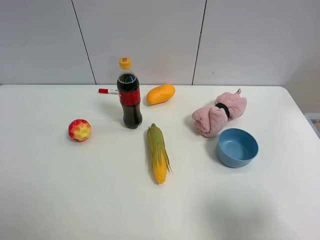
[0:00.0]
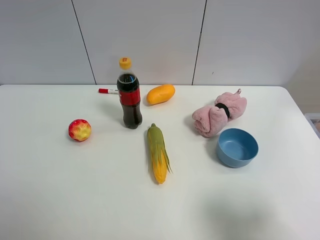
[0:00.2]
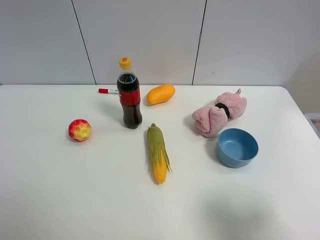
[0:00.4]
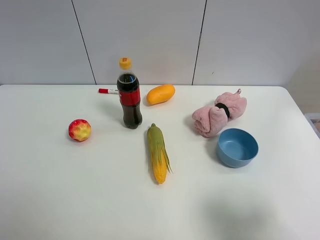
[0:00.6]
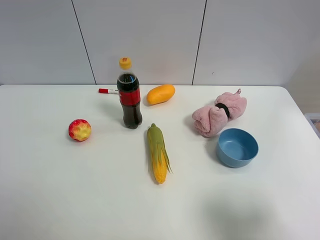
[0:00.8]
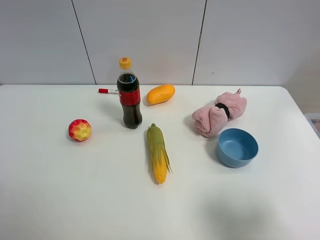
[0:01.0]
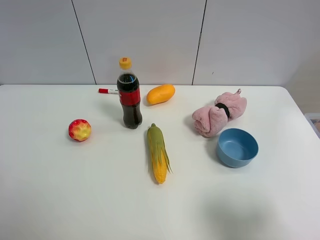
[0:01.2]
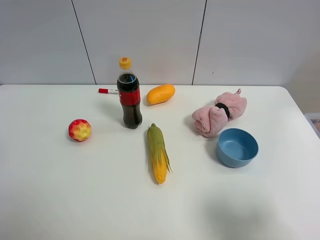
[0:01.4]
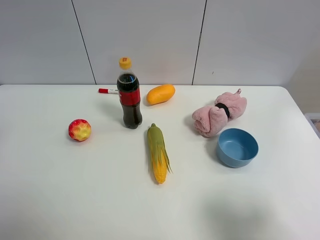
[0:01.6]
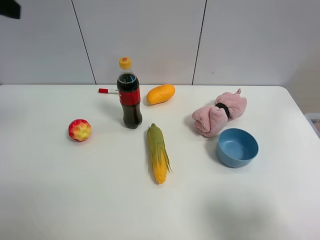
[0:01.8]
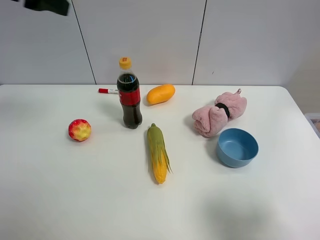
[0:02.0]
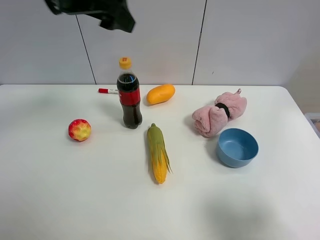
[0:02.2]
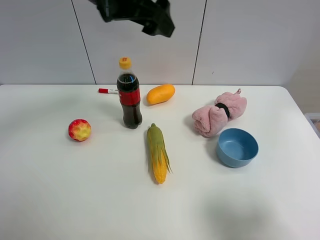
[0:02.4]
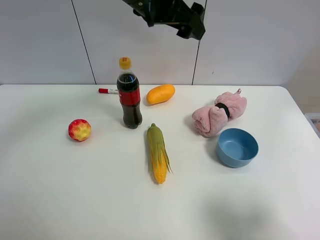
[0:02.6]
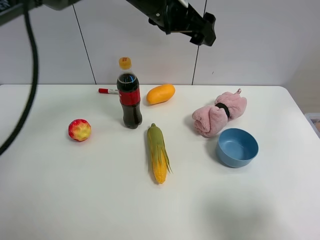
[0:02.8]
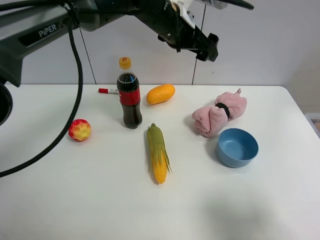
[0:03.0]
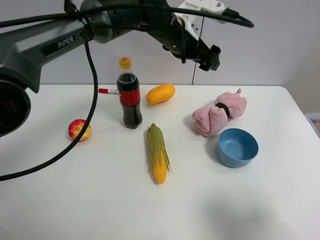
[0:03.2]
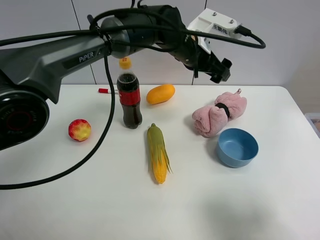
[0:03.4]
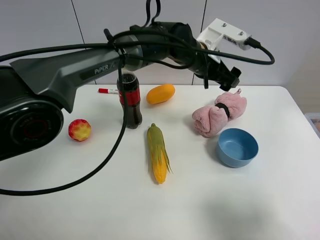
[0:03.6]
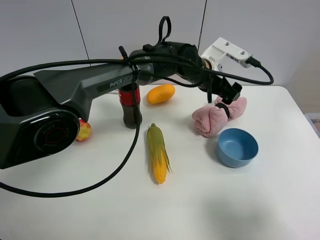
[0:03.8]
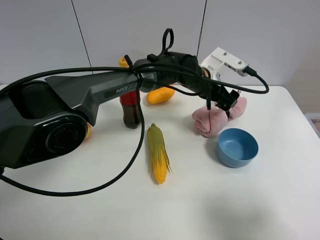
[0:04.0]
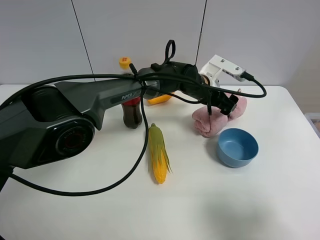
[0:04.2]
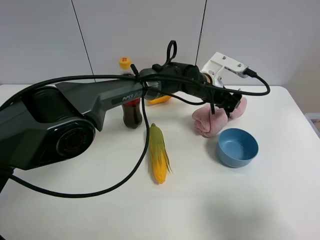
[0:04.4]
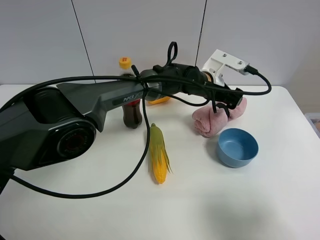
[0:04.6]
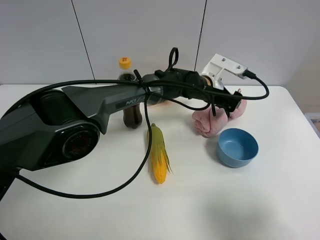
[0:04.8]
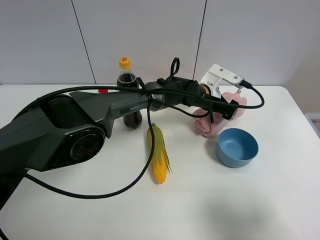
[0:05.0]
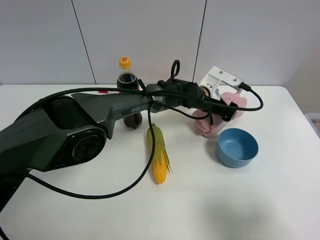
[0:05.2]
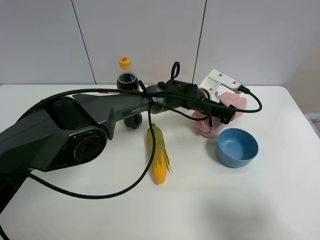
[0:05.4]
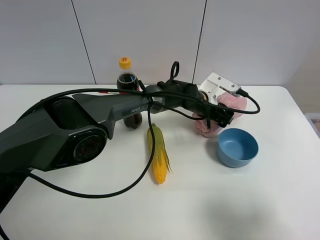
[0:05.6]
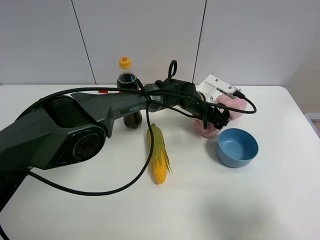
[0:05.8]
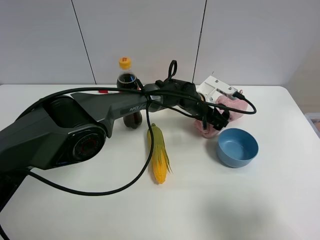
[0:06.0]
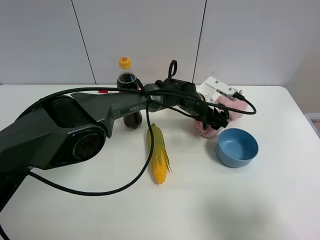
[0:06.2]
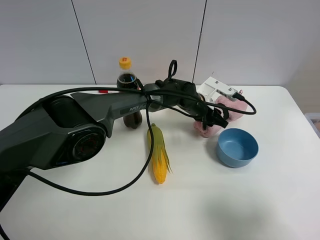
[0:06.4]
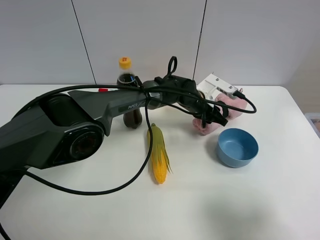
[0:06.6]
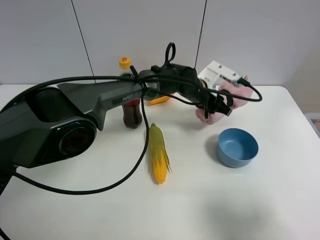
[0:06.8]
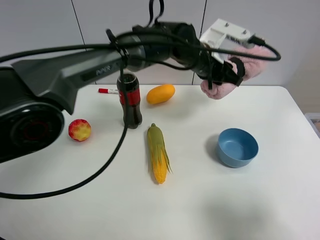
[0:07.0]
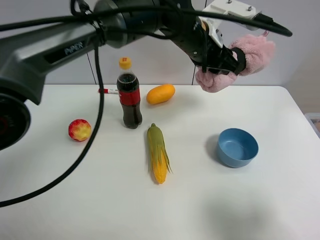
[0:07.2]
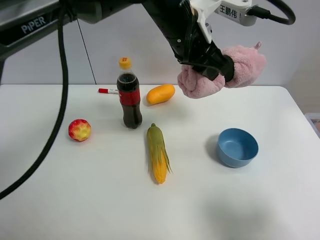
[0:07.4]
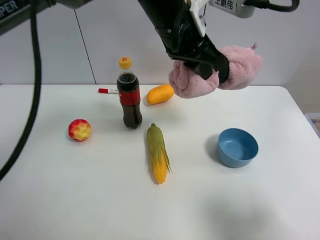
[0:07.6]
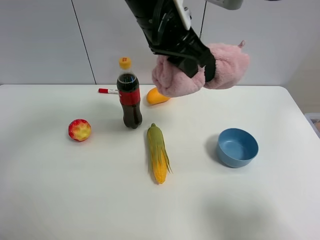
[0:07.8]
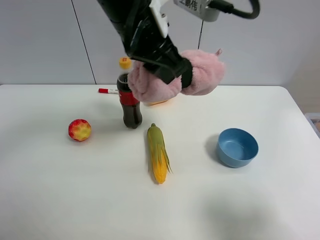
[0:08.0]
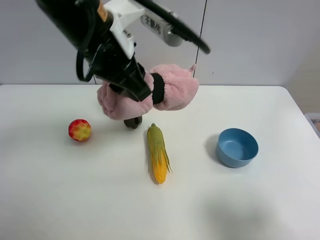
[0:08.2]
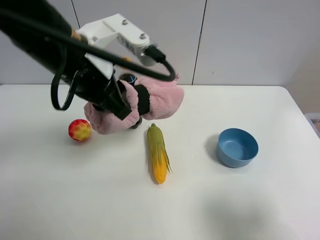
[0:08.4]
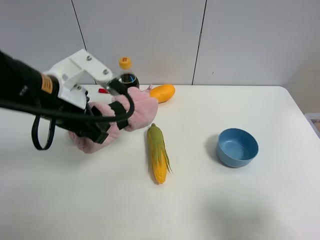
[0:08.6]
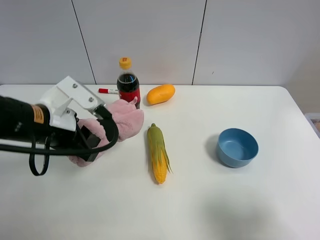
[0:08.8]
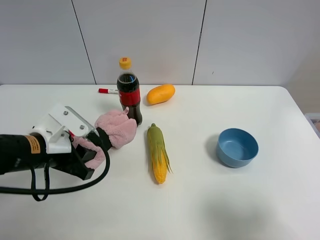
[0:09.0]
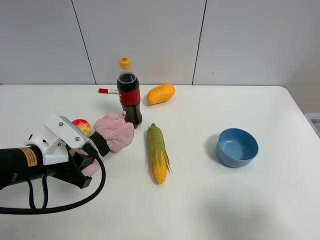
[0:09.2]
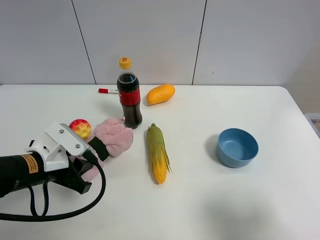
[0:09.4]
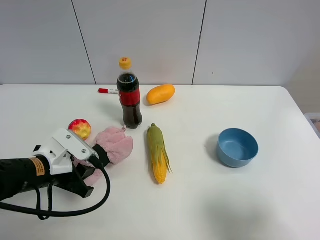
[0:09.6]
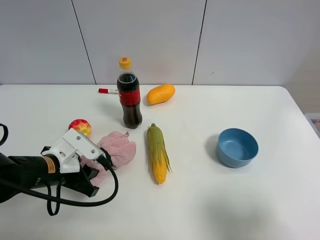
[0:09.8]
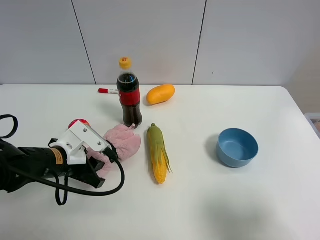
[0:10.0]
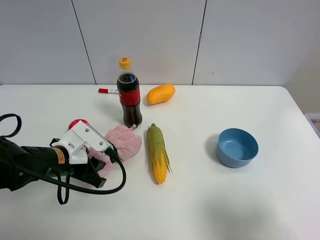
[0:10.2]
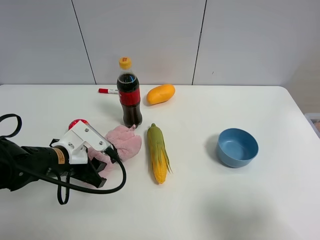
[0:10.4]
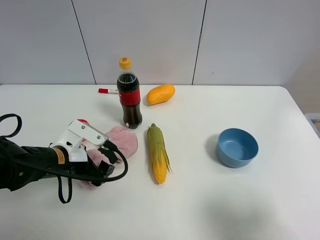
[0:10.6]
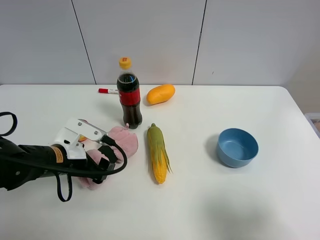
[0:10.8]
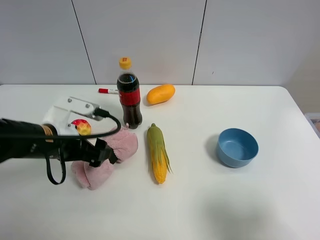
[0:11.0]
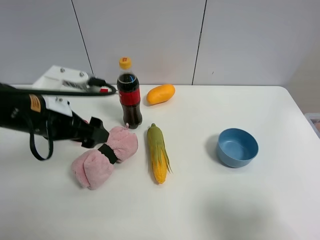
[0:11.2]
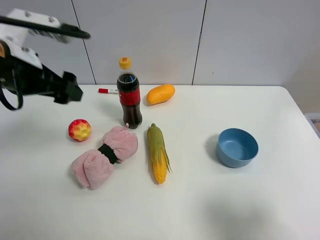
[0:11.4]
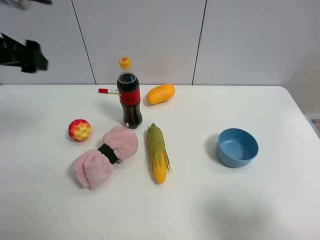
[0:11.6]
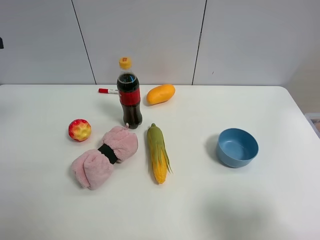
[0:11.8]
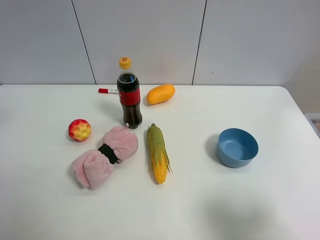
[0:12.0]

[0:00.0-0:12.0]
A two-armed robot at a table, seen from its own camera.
Task of the whole recording: the gripper move the object.
Step, 0:00.0 to 0:06.4: Grasp the pink towel with the left gripper.
Step, 0:06.6 to 0:10.8: Place the pink towel on the table with the left gripper.
0:01.6 to 0:03.0: The left gripper heads to the right and forward, covering approximately 40 cm.
0:03.0 to 0:04.4: The left gripper moves downward and to the right, about 15 cm.
0:04.4 to 0:06.0: The left gripper heads downward, covering some 5 cm.
0:06.0 to 0:07.6: The left gripper moves upward, roughly 25 cm, and closes up.
0:07.6 to 0:09.0: The left gripper is displaced to the left, downward and backward by approximately 30 cm.
0:09.0 to 0:10.4: The left gripper is displaced downward by about 5 cm.
0:10.4 to 0:12.0: The left gripper goes roughly 30 cm upward and to the left, and opens up.

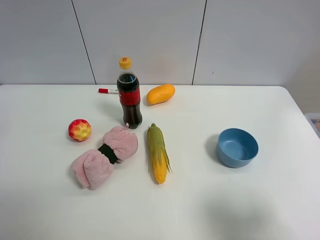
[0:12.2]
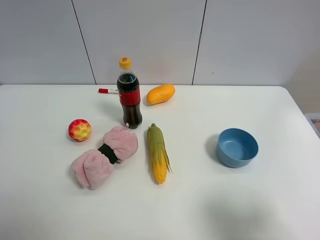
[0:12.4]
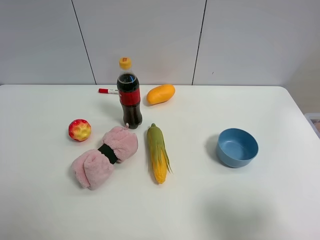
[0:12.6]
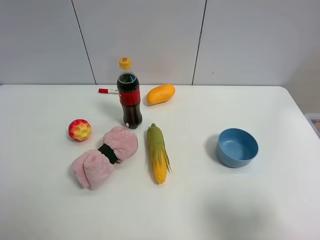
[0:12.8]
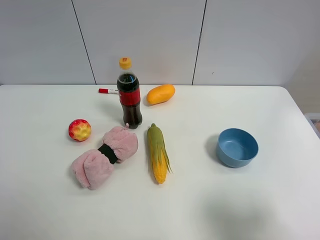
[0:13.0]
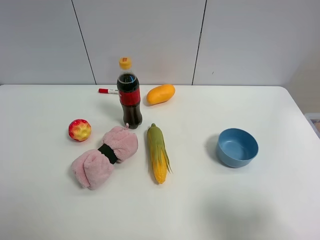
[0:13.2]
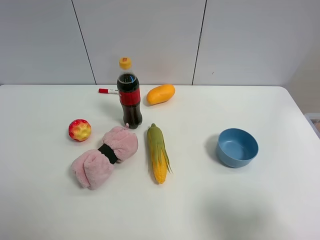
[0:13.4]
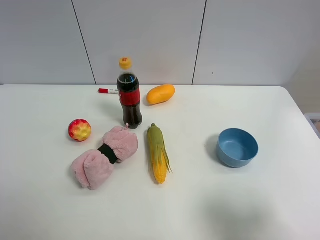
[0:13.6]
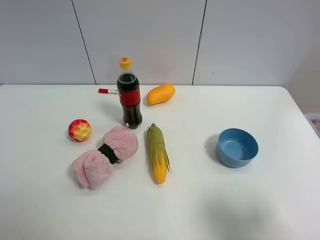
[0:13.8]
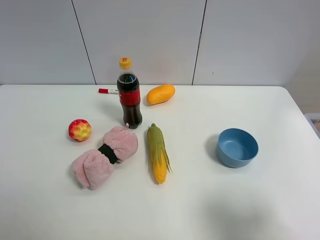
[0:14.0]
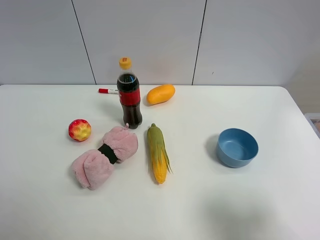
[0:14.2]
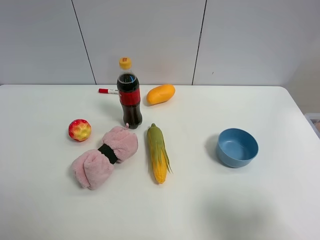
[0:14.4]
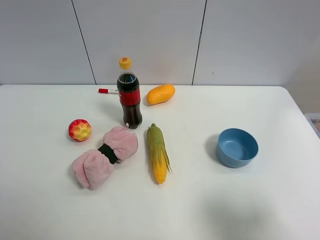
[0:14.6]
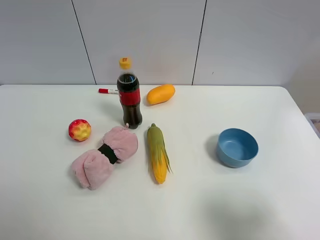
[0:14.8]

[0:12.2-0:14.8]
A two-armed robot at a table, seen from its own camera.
Task of the whole recording: the gripper move the object.
0:13.4 to 0:14.8: Both grippers stay about where they are.

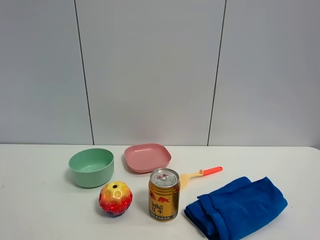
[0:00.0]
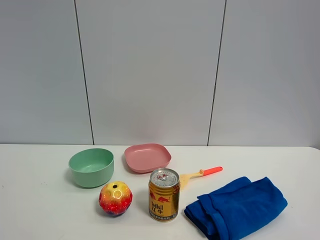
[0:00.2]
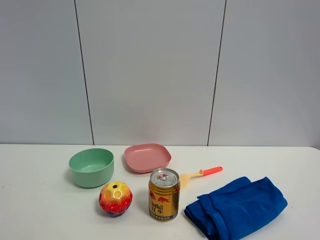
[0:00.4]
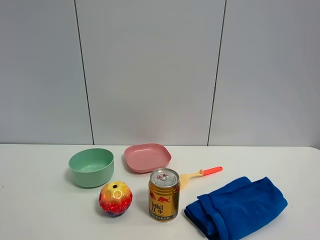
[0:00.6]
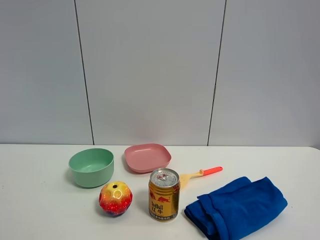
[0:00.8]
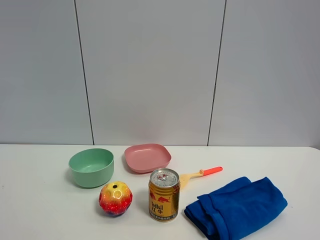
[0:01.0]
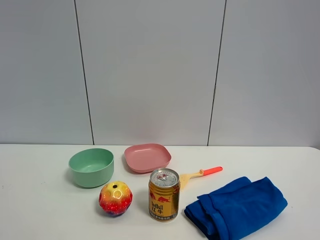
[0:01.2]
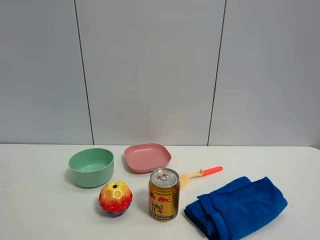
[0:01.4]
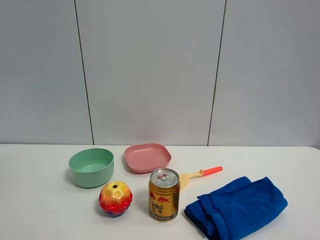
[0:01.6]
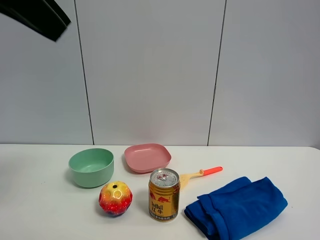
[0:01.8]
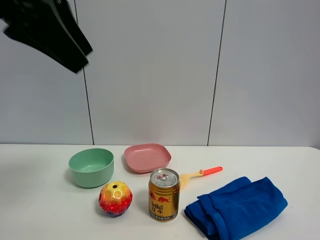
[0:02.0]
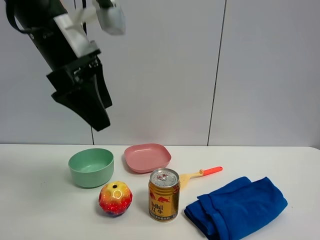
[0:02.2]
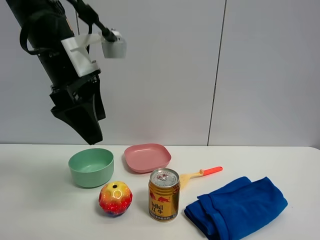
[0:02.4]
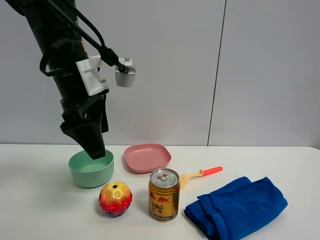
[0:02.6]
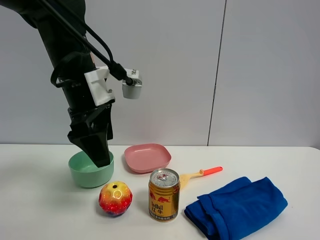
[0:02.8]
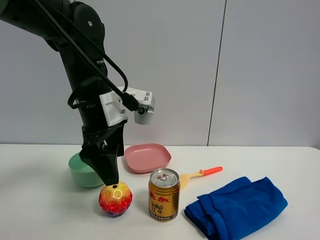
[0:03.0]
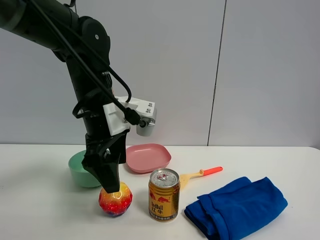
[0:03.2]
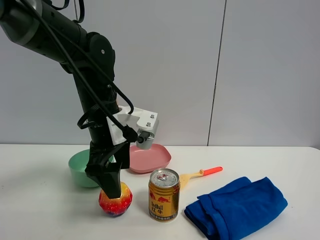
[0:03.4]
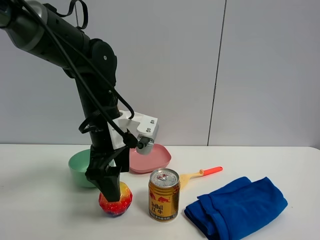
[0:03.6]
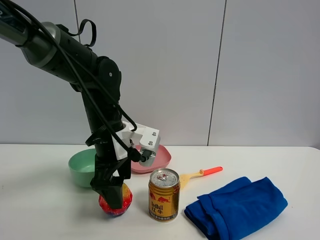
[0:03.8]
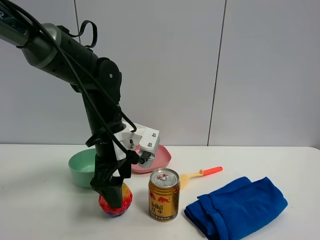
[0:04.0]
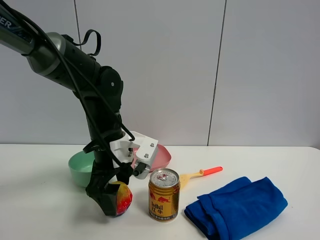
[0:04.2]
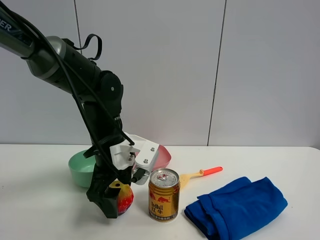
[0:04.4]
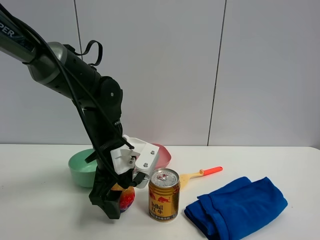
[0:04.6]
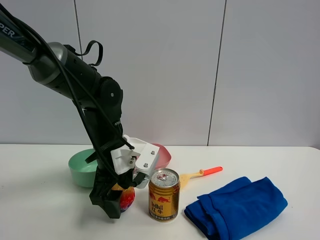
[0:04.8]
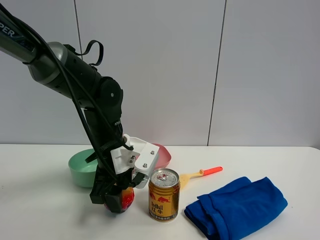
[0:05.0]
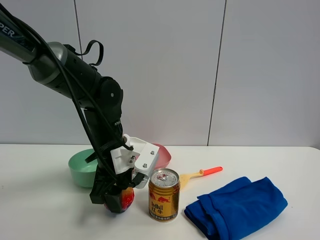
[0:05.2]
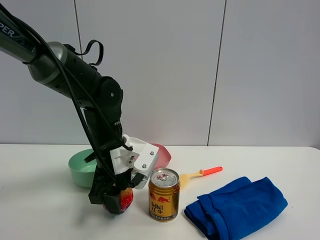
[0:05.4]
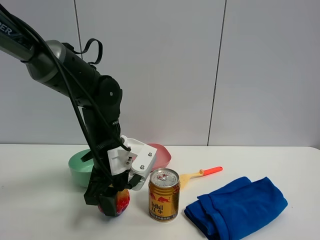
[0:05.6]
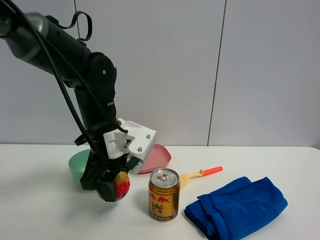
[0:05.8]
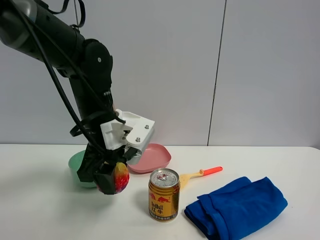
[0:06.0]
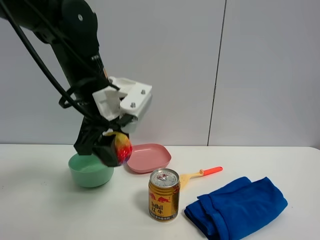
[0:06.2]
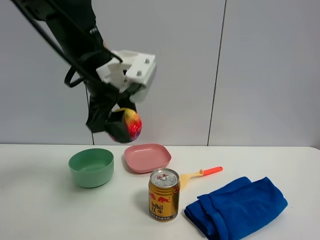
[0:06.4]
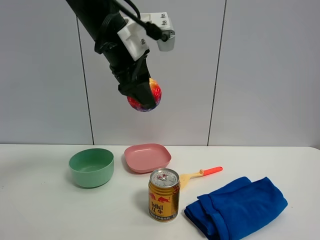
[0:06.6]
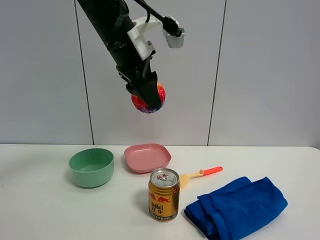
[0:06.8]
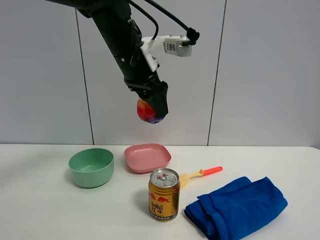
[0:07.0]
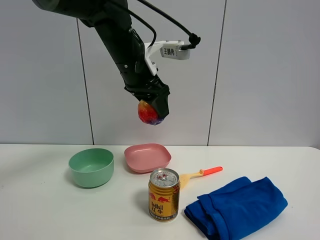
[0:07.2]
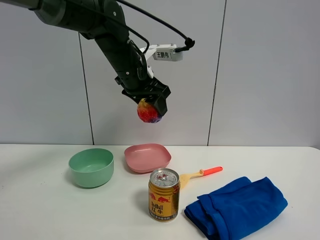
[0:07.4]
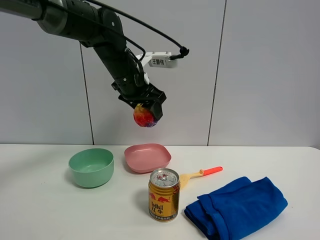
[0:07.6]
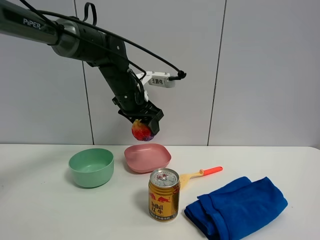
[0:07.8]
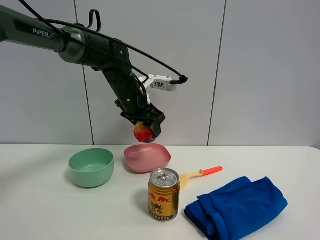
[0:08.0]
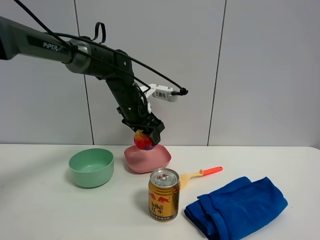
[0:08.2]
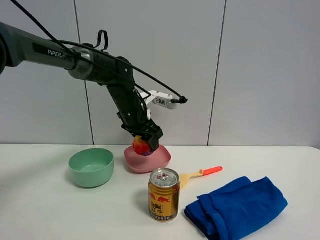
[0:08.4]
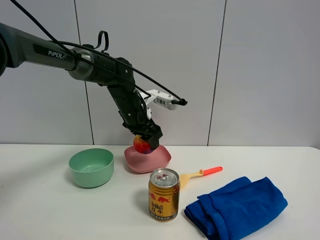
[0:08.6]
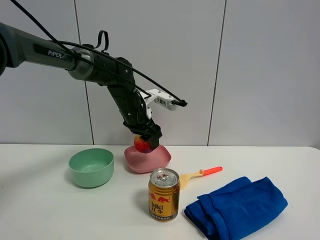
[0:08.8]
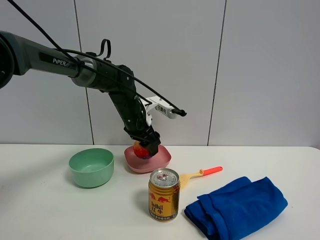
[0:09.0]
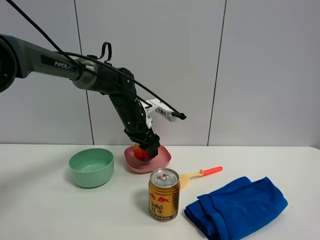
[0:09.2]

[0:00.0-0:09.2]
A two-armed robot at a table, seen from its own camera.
Task of the whole recording: the gripper move the object.
Step, 0:00.0 to 0:05.2: Grasp the colorful ball with the left gripper.
0:01.6 to 0:03.0: The left gripper is displaced downward, to the right and forward by approximately 30 cm, and opens.
0:03.0 to 0:04.6: The left gripper travels downward by roughly 10 cm.
0:04.6 to 0:06.2: The left gripper travels upward by roughly 10 cm, and closes.
0:06.2 to 0:07.6: The left gripper is displaced forward by about 10 cm.
0:07.6 to 0:09.2: The left gripper is displaced downward by about 10 cm.
